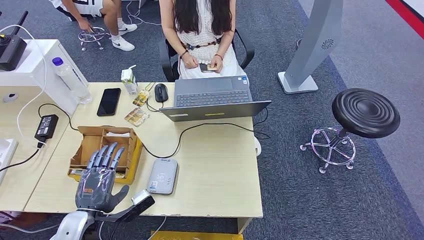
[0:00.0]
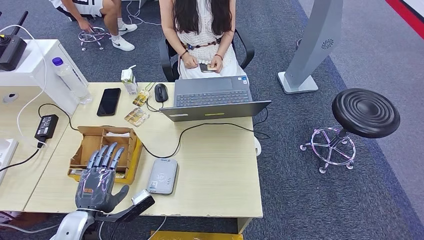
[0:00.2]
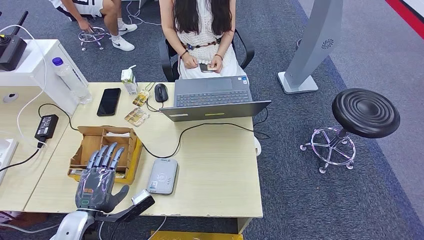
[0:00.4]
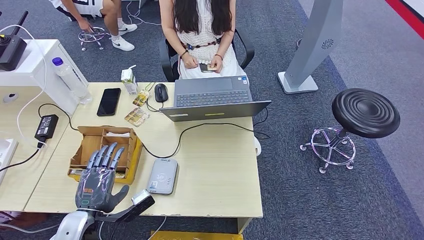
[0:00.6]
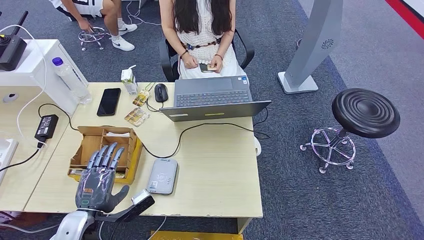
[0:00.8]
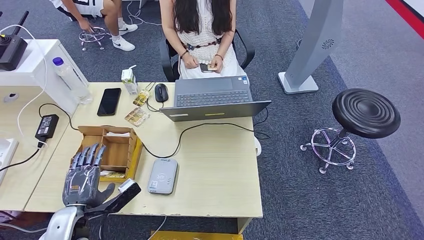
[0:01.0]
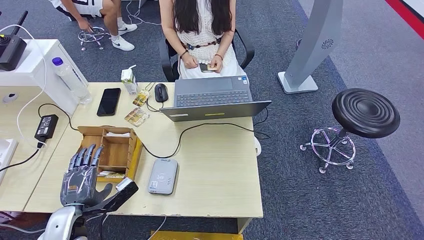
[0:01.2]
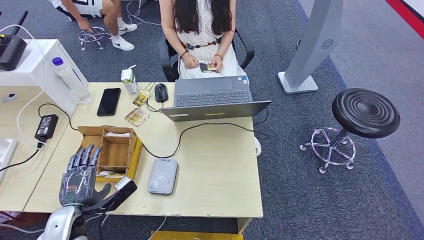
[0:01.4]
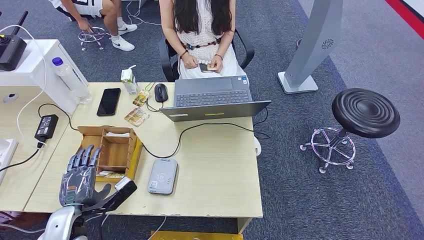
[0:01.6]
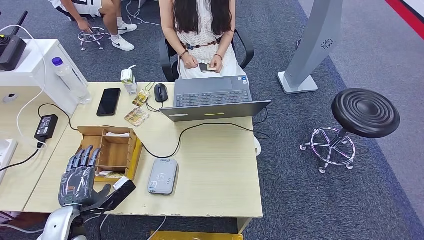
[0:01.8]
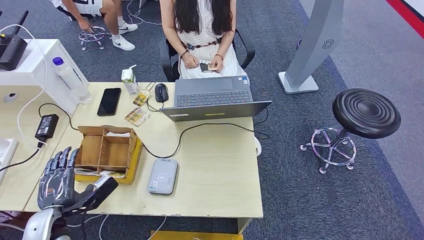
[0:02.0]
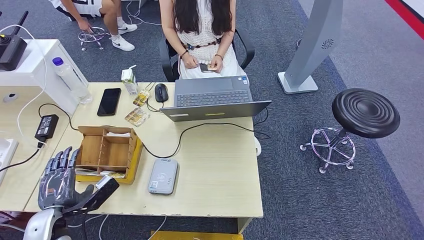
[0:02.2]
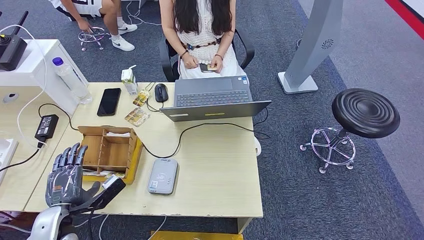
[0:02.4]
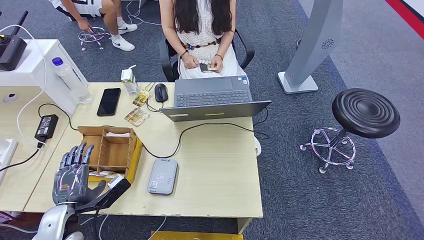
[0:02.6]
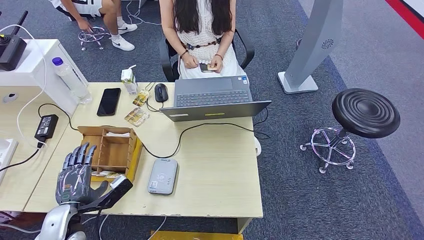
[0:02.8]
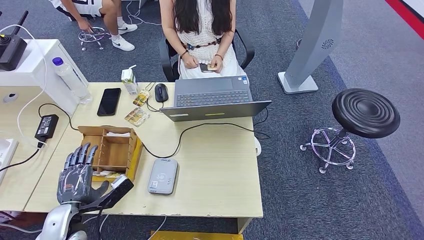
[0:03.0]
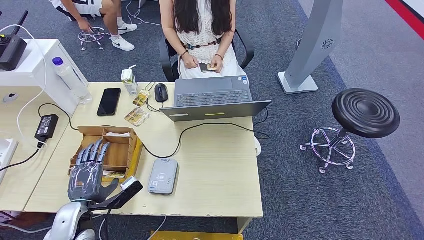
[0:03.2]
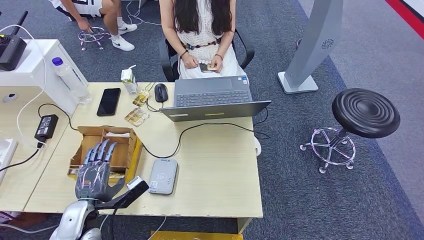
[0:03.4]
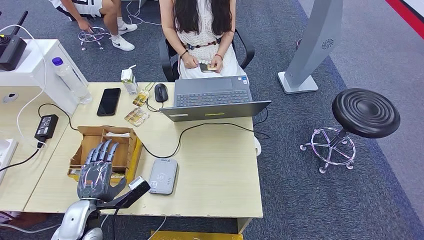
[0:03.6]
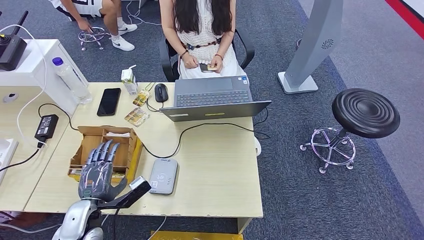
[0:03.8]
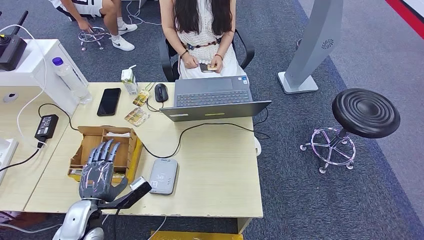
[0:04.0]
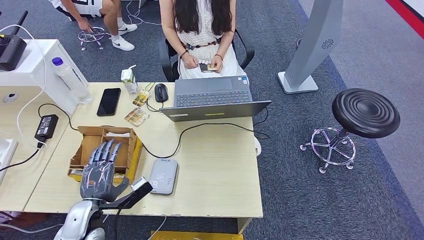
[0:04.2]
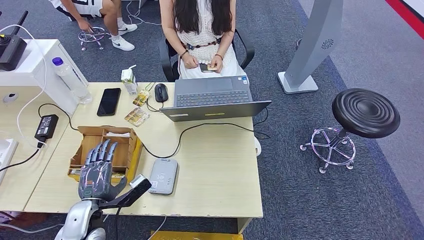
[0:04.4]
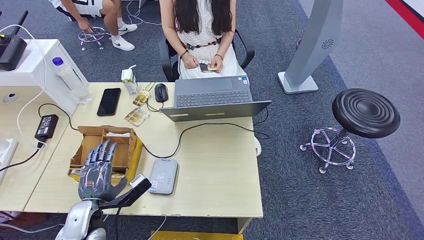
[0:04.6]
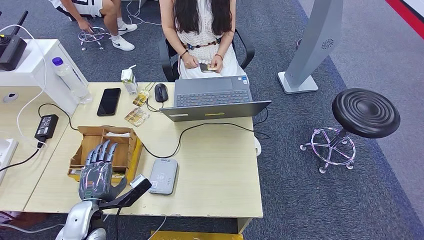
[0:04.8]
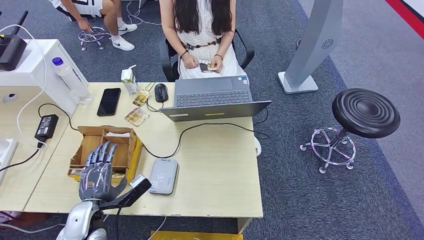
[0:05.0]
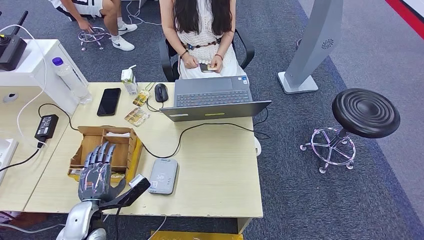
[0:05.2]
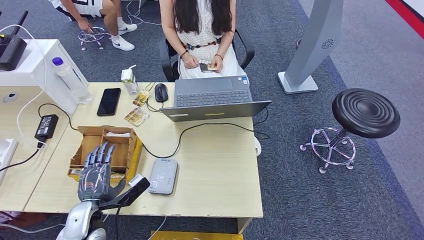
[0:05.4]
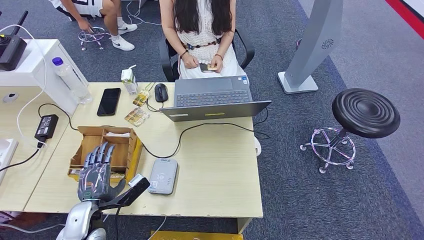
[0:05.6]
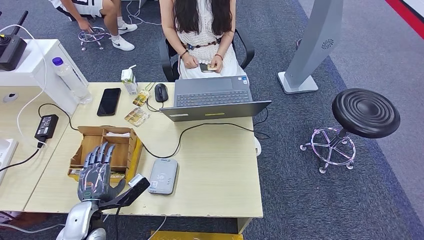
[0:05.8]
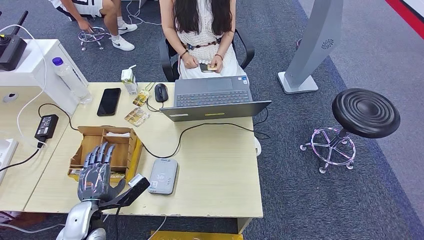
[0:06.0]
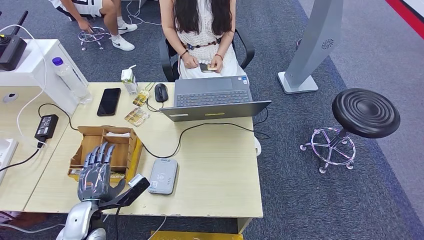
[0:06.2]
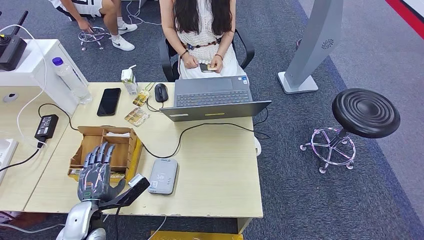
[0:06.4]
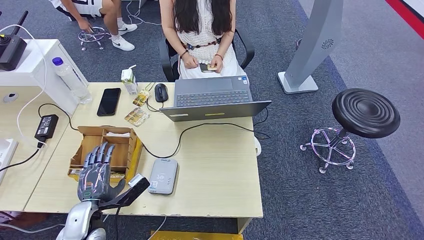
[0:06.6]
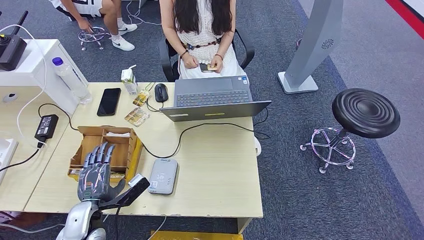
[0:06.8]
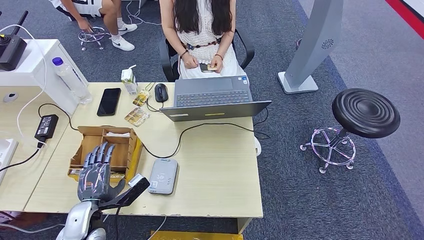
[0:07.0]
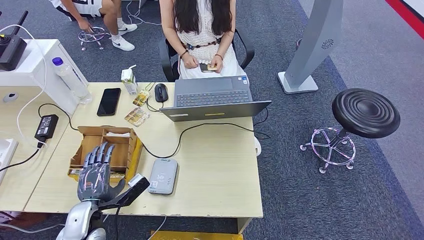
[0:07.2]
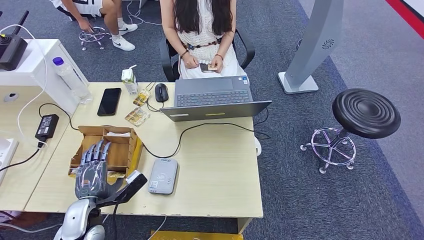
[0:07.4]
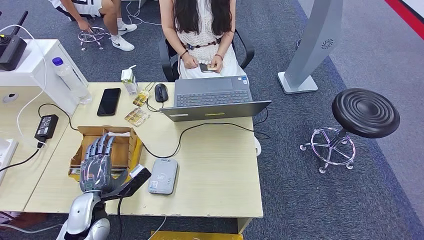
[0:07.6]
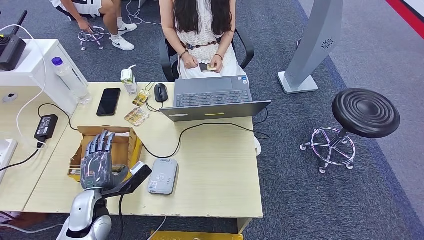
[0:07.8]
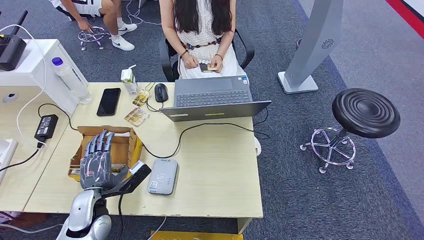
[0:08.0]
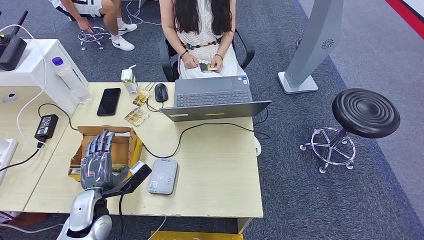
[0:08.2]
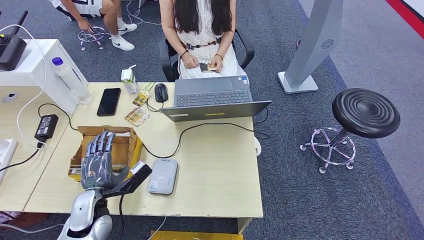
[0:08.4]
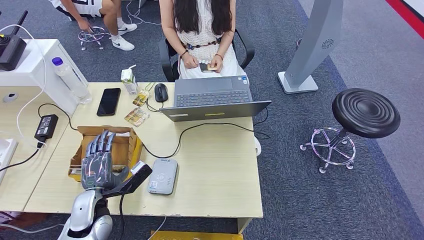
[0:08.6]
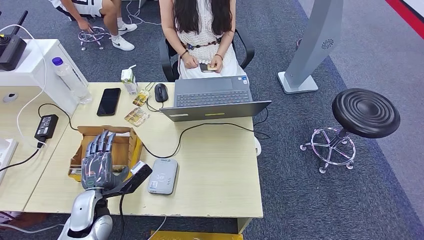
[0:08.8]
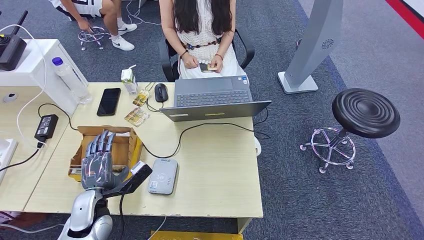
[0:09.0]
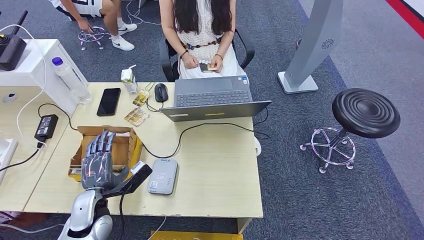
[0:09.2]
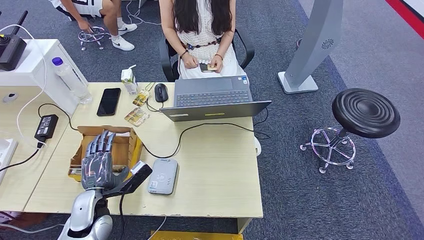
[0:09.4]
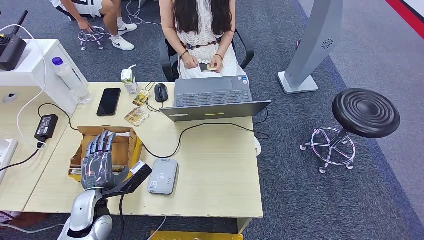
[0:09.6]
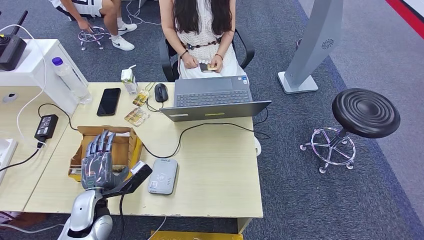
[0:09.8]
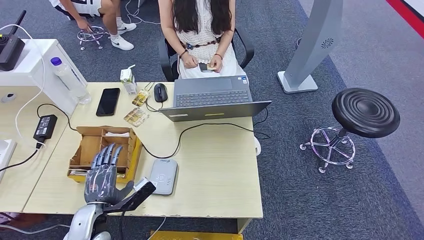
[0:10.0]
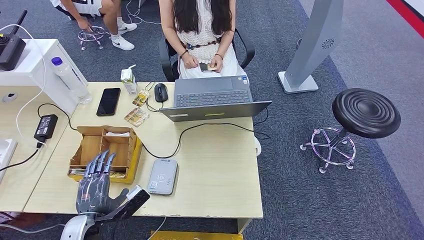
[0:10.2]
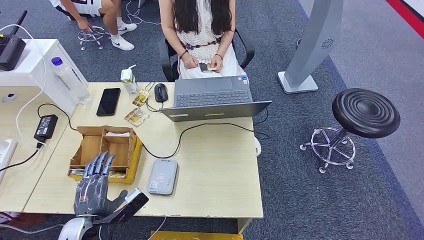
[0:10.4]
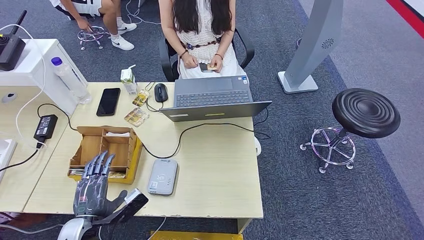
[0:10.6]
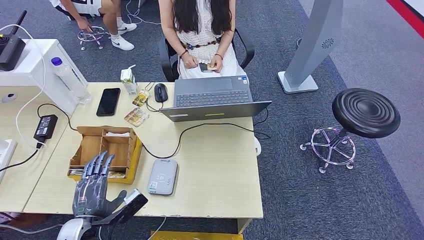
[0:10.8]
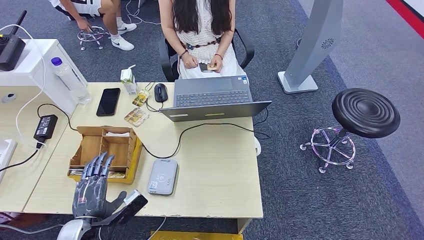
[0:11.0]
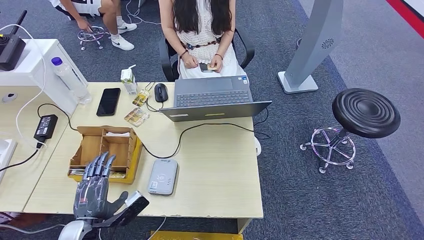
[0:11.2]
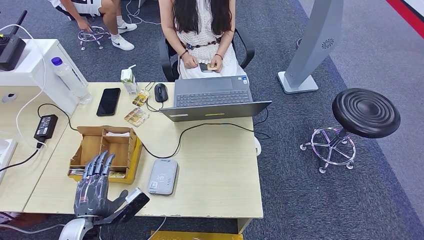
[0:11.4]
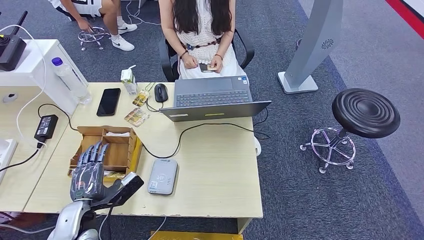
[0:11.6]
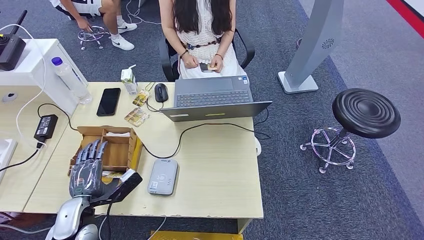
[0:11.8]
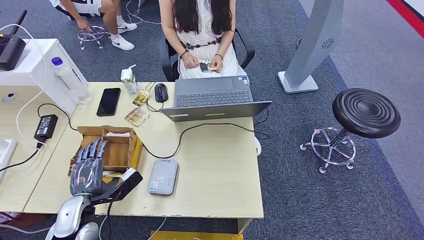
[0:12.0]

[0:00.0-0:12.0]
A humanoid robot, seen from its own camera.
0.0 to 1.6 s: There are only small adjustments of the hands.
1.6 to 4.4 s: The hands move only a little.
4.4 to 6.0 s: Both hands stay put.
6.0 to 7.6 s: The hands stay close to where they were, moving slightly.
7.6 to 9.0 s: Neither hand changes place.
9.0 to 10.4 s: The left hand moves backward, about 5 cm.
10.4 to 12.0 s: The left hand is displaced forward by some 5 cm.

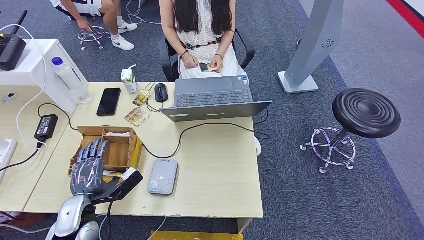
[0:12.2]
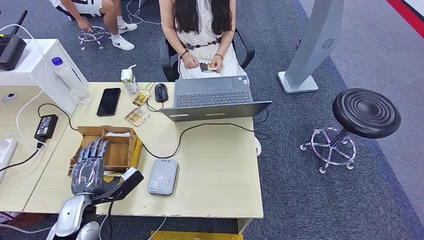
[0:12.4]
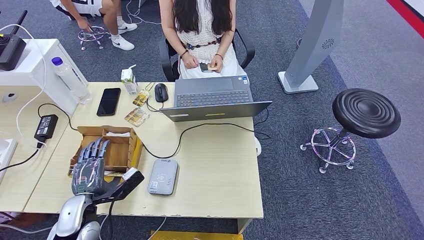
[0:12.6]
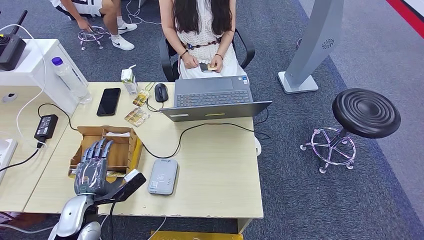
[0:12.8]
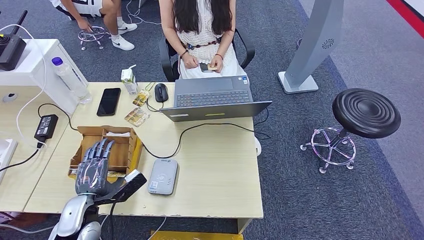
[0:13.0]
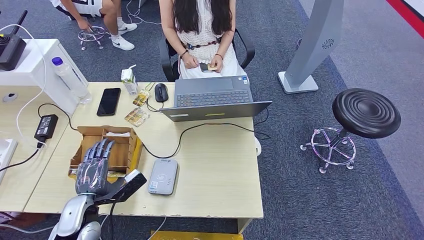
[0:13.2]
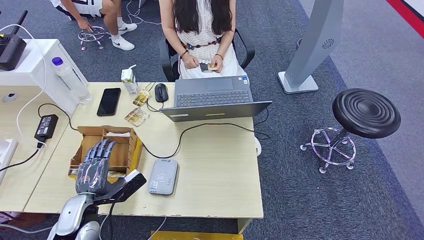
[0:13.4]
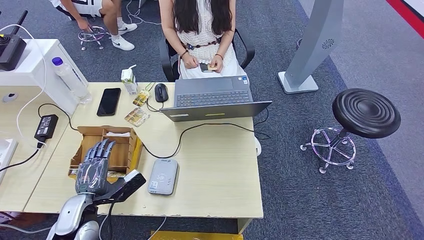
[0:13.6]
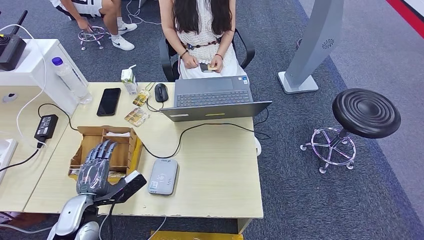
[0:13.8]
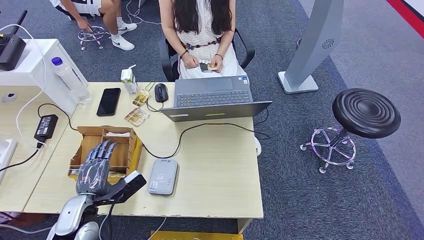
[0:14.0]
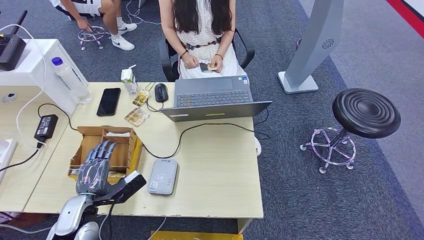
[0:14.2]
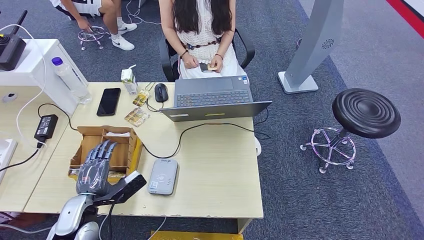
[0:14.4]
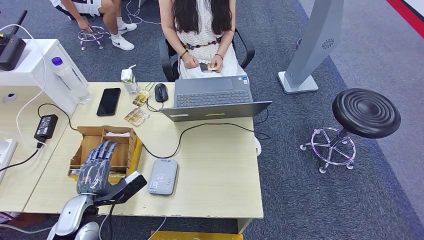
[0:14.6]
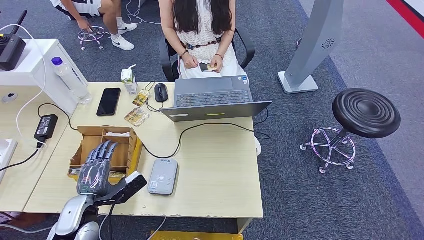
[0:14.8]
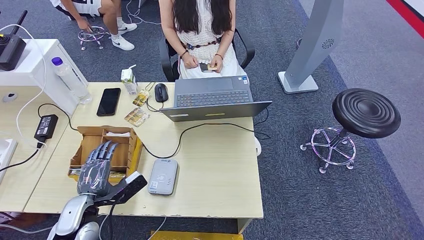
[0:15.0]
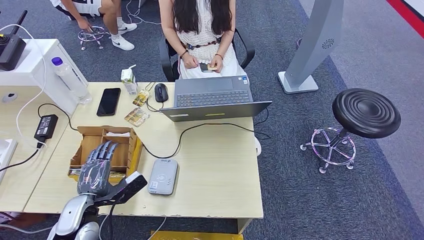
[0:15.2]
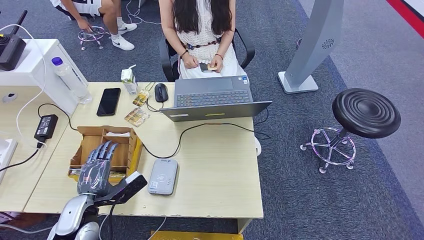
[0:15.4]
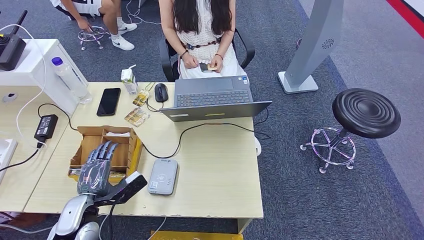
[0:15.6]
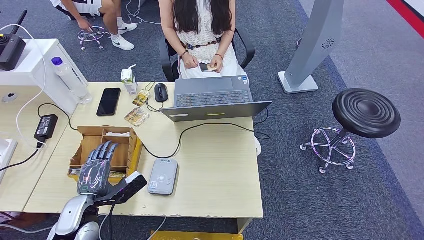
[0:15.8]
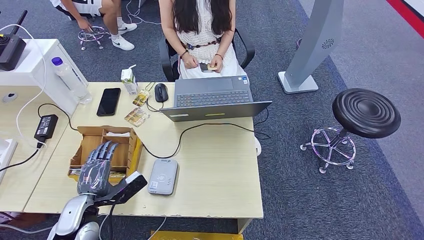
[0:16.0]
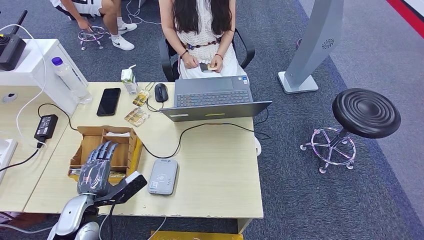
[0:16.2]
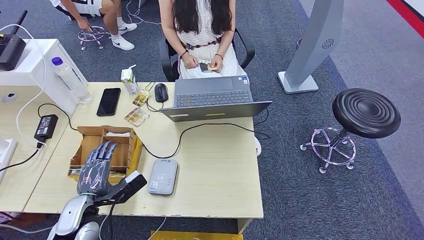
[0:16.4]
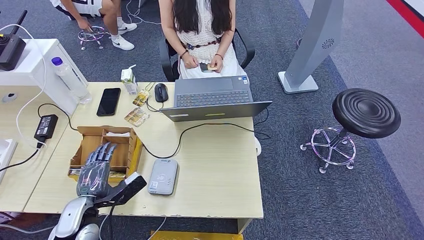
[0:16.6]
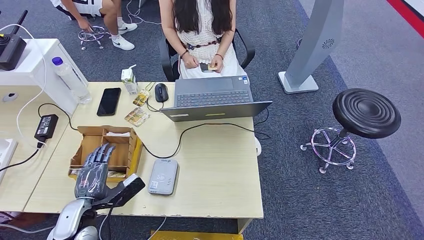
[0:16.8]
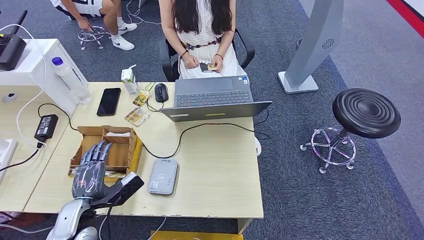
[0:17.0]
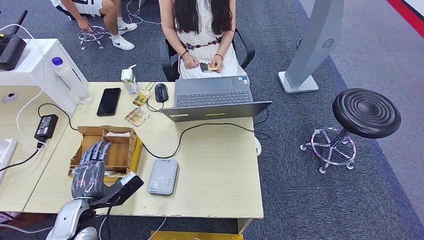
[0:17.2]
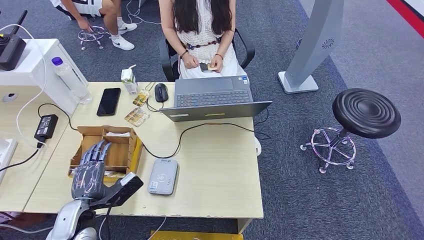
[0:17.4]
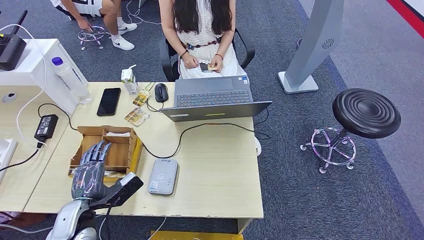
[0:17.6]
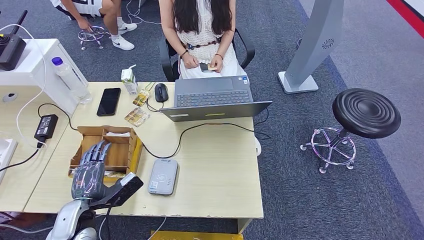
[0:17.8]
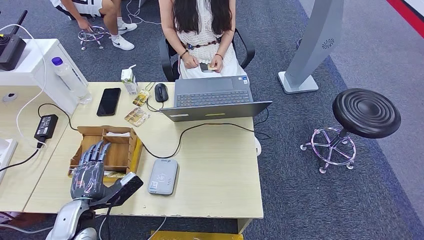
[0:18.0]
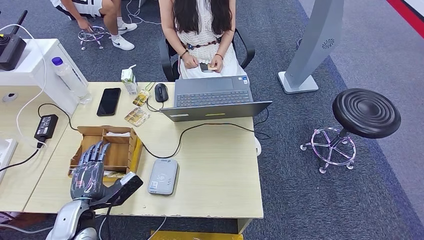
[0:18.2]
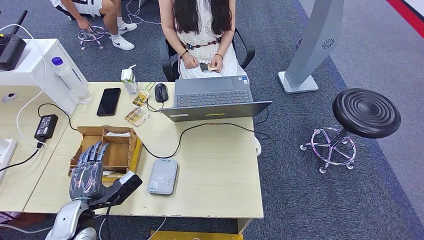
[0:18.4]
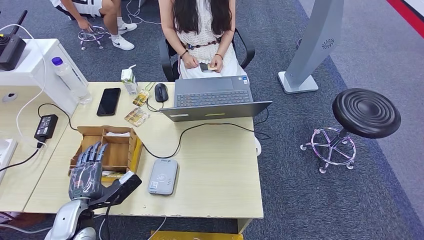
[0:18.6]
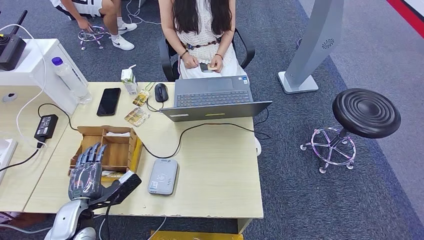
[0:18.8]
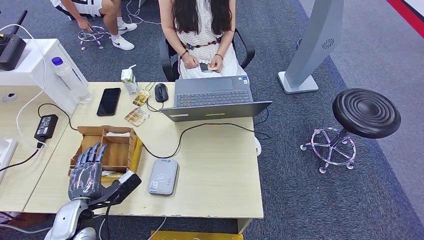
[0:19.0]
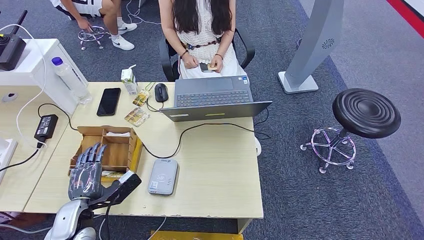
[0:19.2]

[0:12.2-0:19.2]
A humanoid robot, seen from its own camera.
12.2 to 13.6 s: The hands make only small movements.
13.6 to 17.8 s: The two hands keep their place.
17.8 to 19.2 s: The hands make only small movements.
